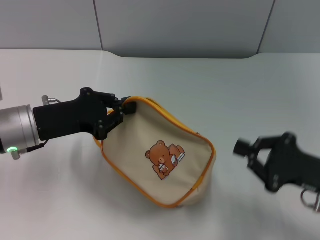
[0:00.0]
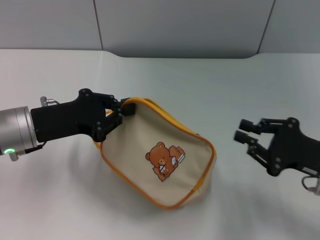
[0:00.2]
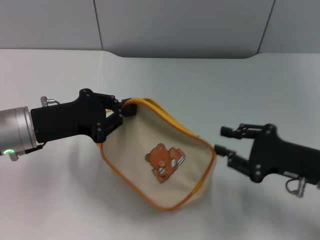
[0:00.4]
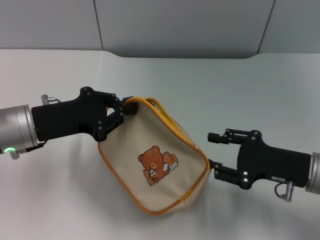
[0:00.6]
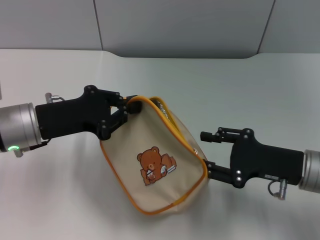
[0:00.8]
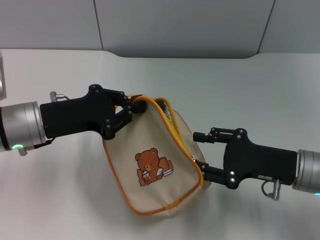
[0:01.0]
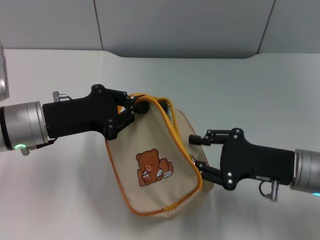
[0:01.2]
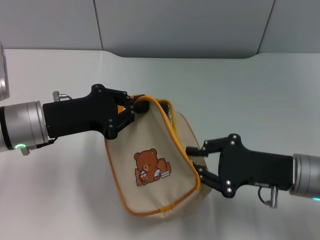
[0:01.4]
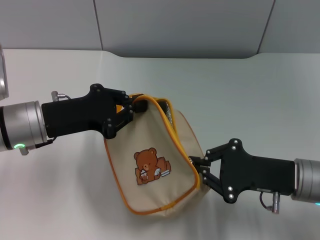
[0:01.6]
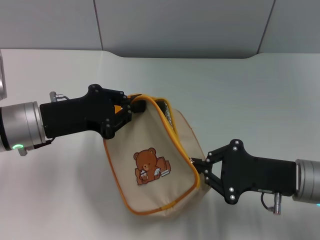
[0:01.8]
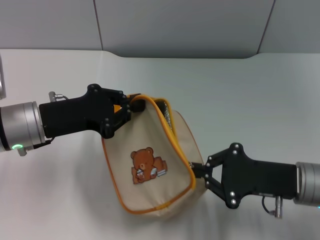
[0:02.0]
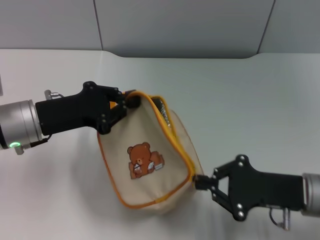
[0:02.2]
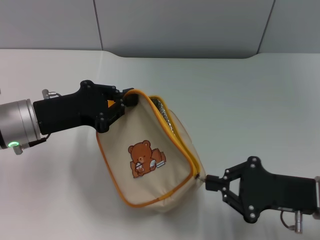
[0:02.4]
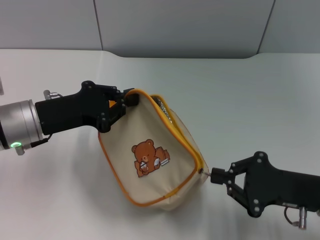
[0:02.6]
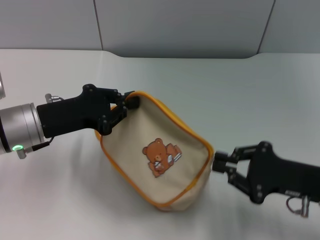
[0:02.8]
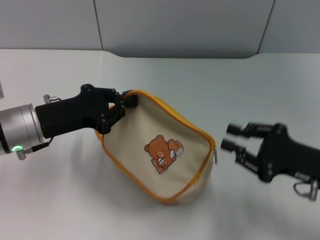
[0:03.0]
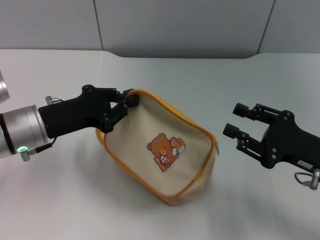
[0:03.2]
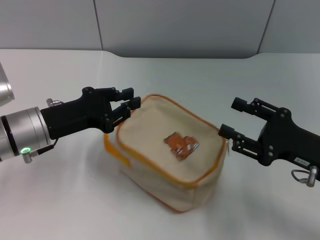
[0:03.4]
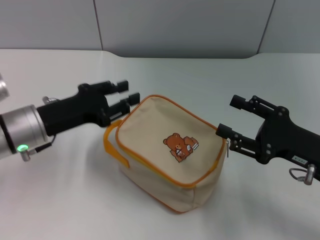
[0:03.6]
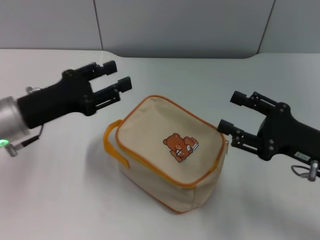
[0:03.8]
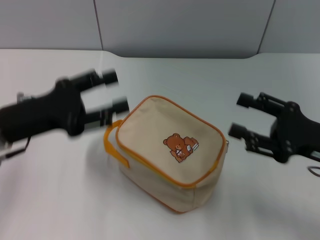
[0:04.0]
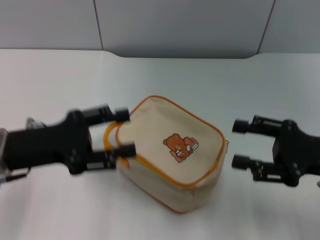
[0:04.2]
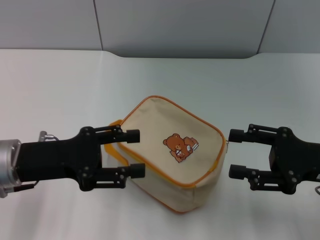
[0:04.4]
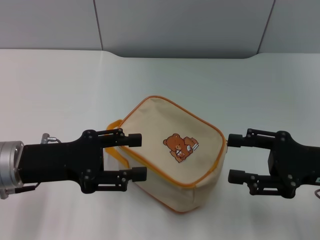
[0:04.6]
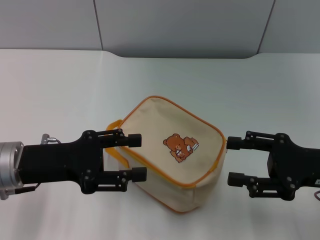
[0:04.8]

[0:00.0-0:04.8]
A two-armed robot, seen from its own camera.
Step, 0:00.0 to 0:02.8: Unzip the zipper of bag with right gripper.
Step, 0:03.2 to 0:03.4: Place the bag on the table with left gripper.
0:00.0 to 0:01.6: The right gripper travels to the left by approximately 5 cm.
0:03.2 to 0:04.8: The left gripper opens; the right gripper opens.

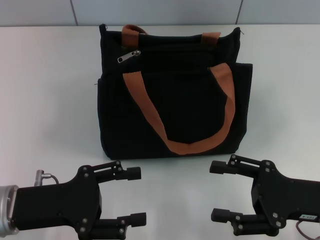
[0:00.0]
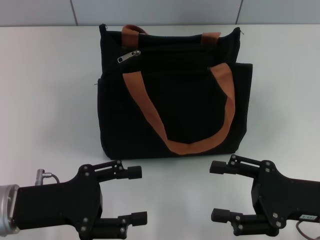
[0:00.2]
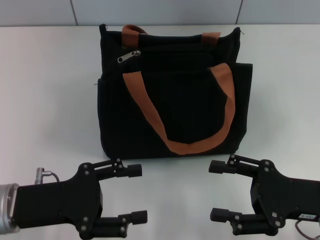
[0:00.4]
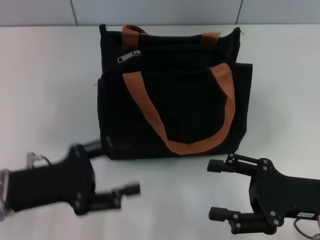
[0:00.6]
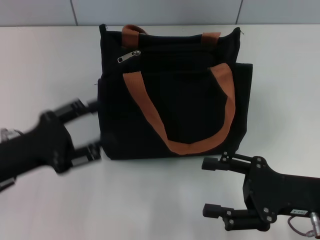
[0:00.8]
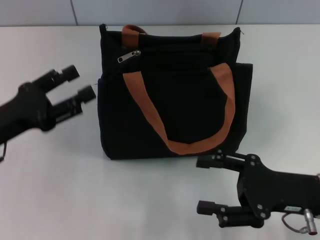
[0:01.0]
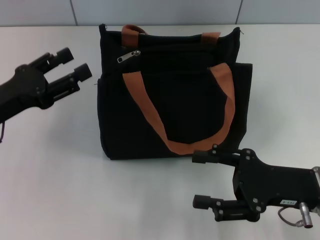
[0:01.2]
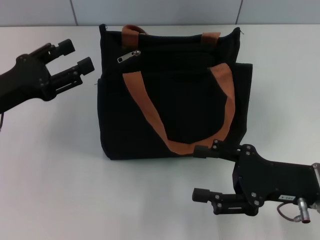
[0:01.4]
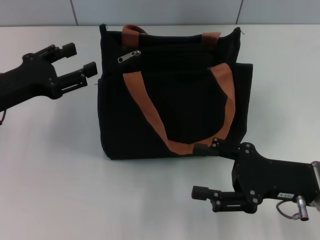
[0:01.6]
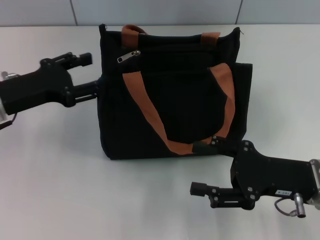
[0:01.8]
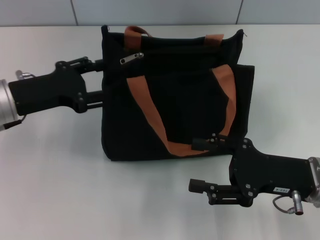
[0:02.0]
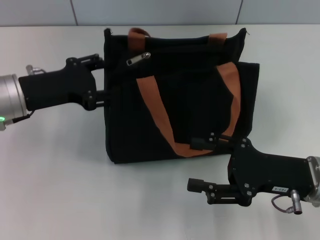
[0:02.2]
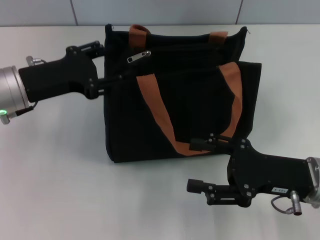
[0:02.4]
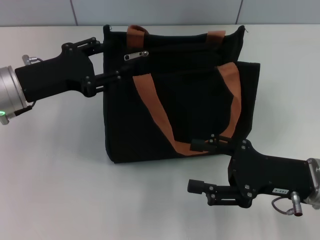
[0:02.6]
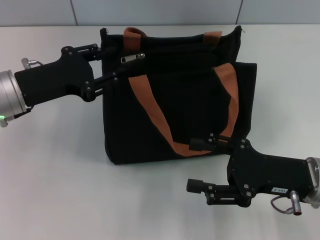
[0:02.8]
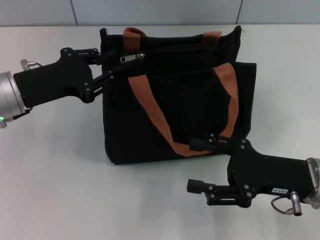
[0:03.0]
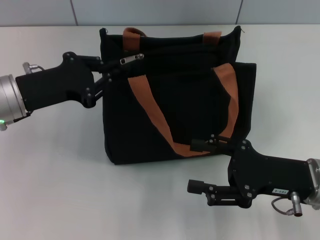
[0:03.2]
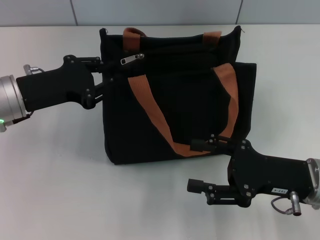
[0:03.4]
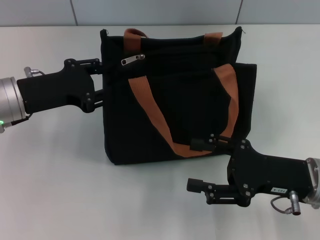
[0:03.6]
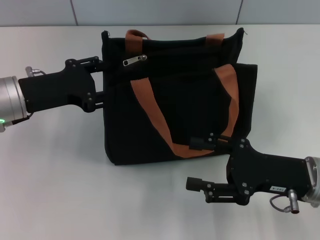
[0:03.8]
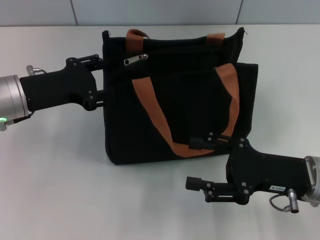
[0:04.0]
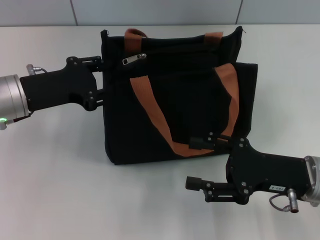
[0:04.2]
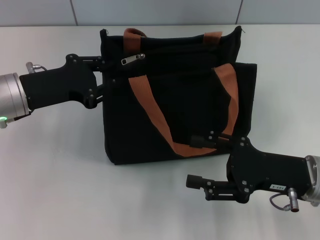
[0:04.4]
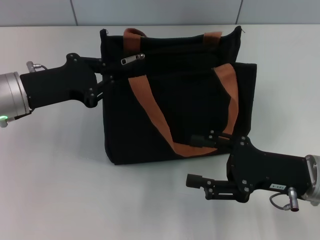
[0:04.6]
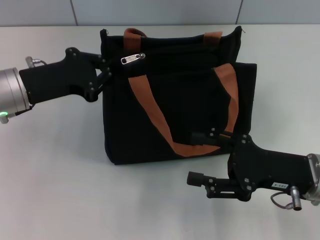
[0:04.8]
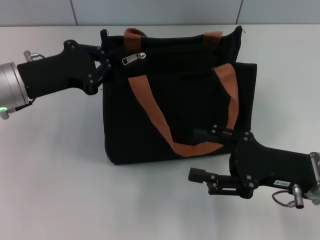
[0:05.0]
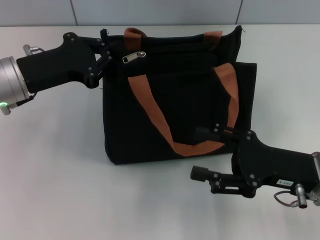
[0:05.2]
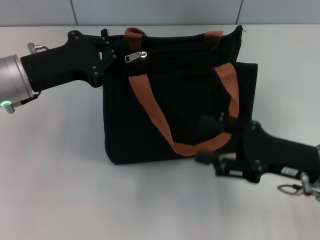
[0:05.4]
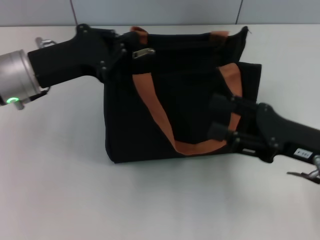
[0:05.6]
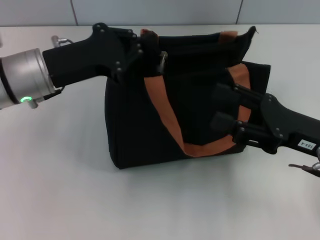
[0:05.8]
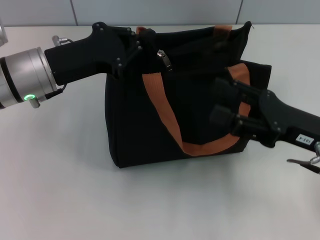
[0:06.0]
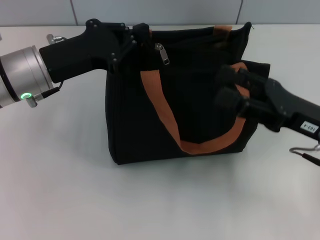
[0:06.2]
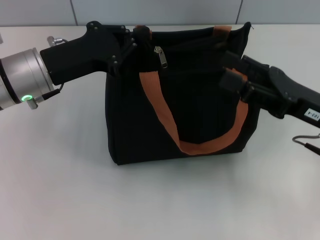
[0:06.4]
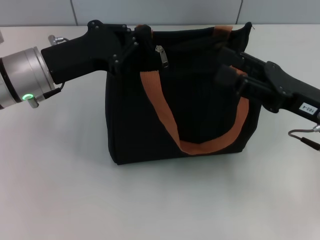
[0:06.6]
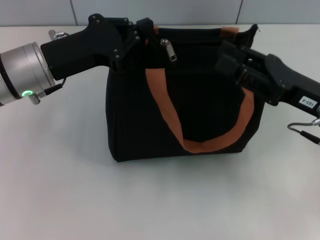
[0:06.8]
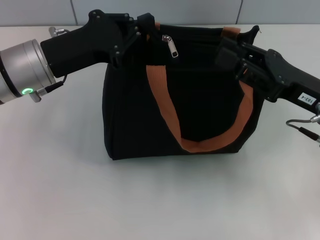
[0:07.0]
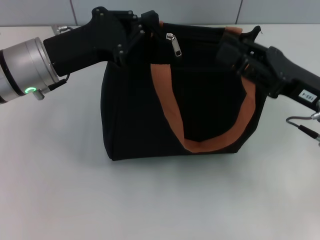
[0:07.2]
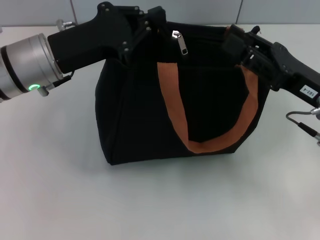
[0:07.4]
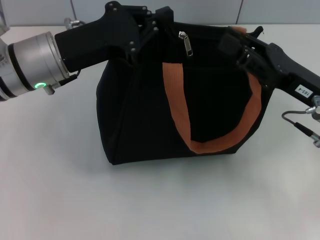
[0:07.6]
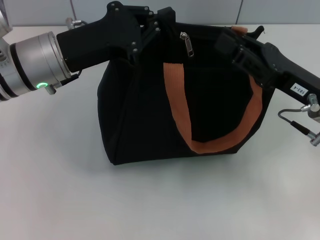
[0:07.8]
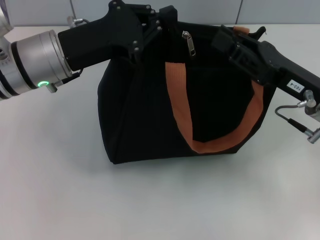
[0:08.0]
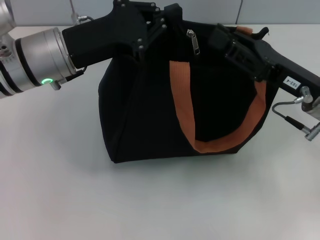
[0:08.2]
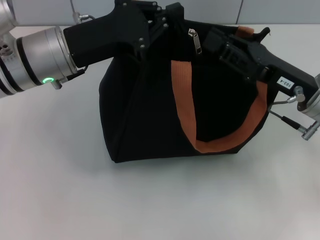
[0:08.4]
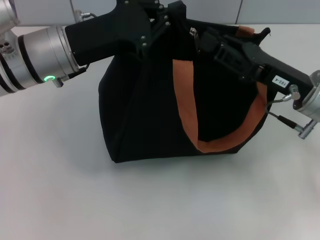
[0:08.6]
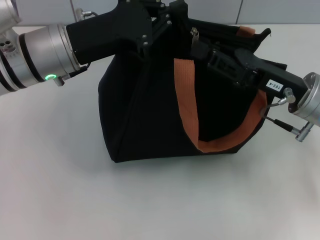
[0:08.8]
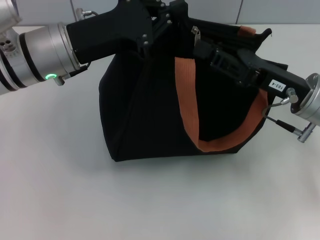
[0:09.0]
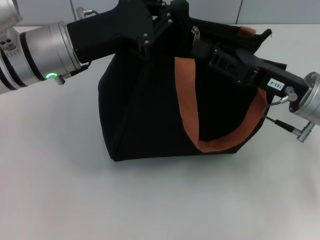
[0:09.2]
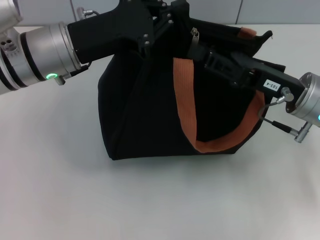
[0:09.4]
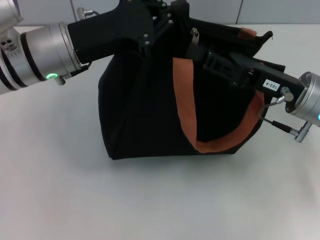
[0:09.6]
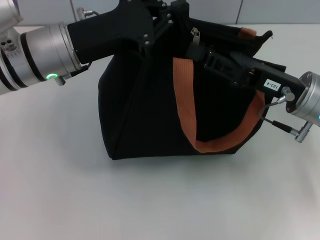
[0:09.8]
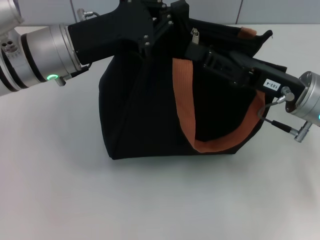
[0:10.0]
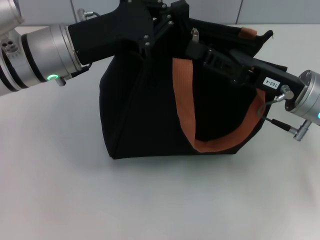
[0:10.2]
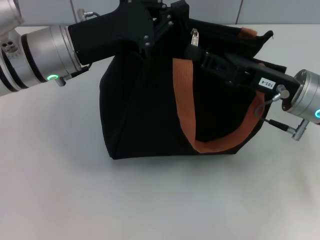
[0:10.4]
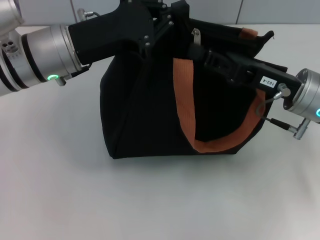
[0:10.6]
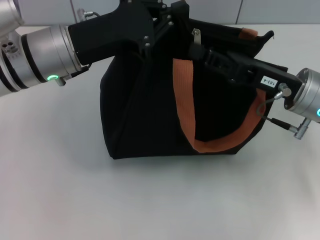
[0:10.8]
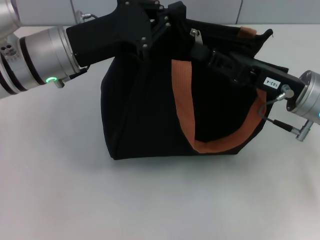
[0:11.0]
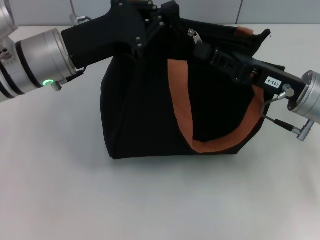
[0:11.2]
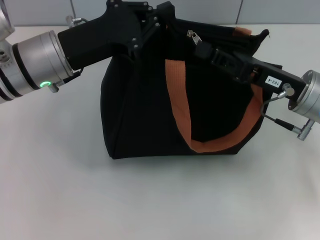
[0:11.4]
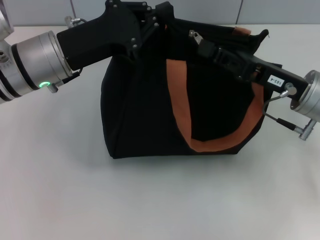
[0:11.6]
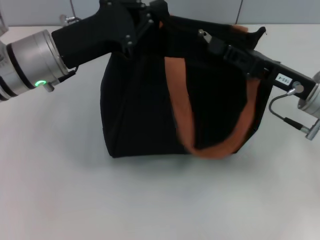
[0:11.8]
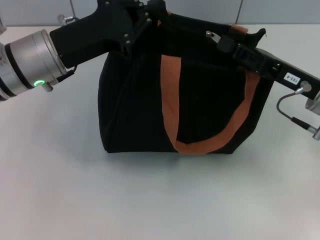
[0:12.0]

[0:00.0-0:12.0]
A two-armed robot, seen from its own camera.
0:00.0 to 0:01.6: The left gripper moves forward, some 10 cm.
0:01.6 to 0:03.0: The grippers move only a little.
0:03.0 to 0:04.4: The left gripper closes and opens again.
0:04.4 to 0:06.0: The left gripper closes.
0:06.0 to 0:07.6: The right gripper closes its fingers.
0:07.6 to 0:12.0: The grippers make only small movements.

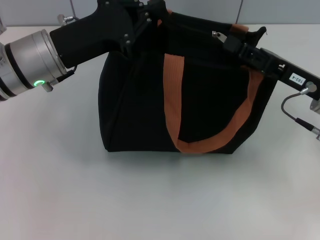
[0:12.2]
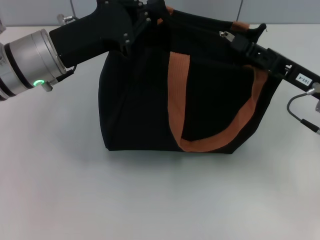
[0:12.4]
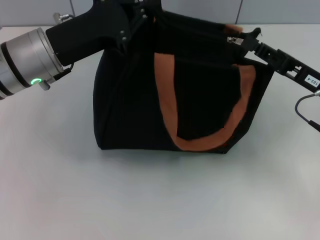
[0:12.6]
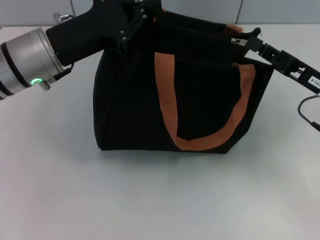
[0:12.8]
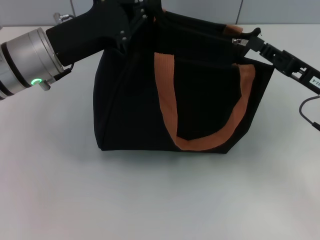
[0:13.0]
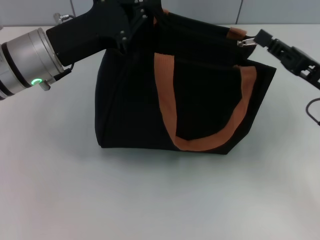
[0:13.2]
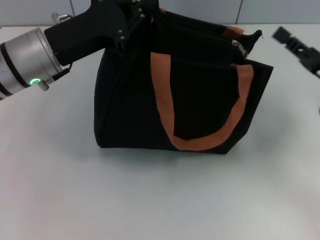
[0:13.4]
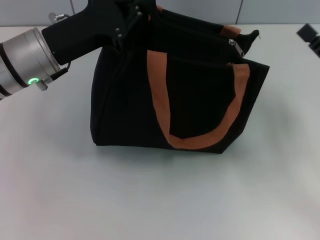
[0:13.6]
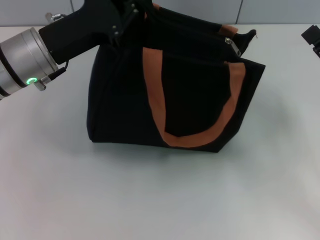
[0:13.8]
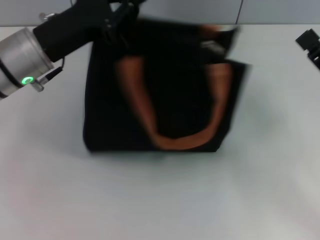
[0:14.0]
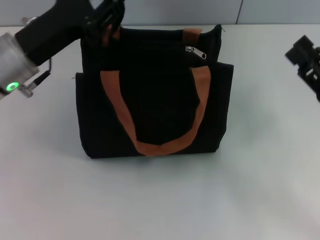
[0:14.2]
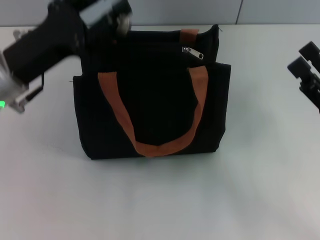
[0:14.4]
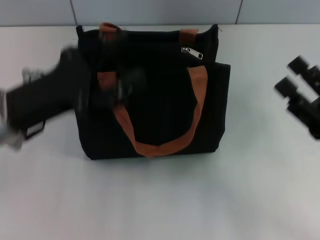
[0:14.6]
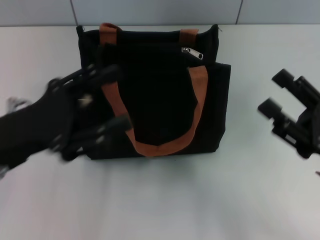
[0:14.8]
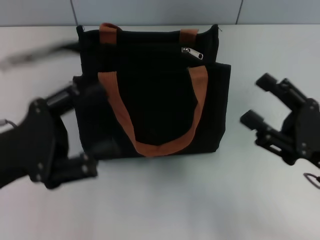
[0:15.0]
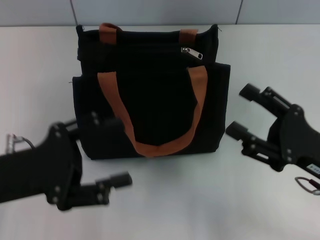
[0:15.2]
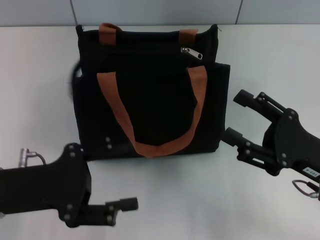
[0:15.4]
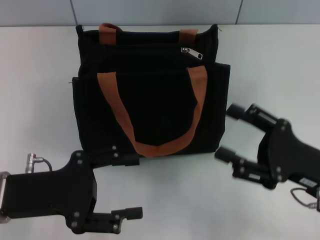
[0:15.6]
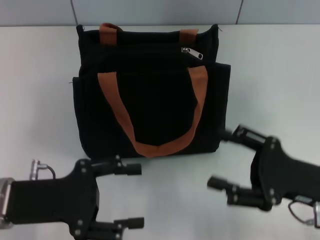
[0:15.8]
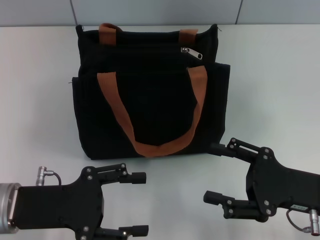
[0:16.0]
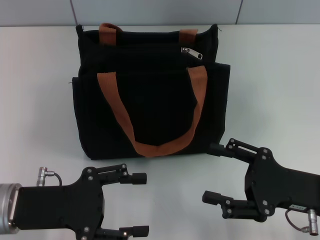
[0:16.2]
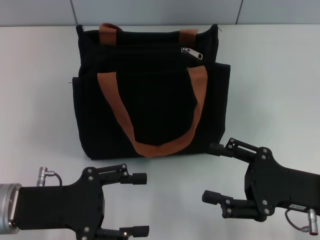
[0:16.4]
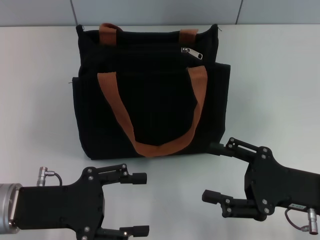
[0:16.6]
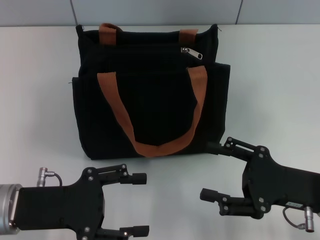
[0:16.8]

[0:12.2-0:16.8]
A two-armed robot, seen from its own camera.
Step, 0:13.4 to 0:14.2: Grab the zipper with your left hand.
0:12.2 to 0:13.8: The right gripper is displaced to the right and backward by about 10 cm, and opens.
0:13.8 to 0:15.2: The right gripper shifts some 5 cm to the left, and opens. The left gripper travels backward by some 15 cm, and opens up.
